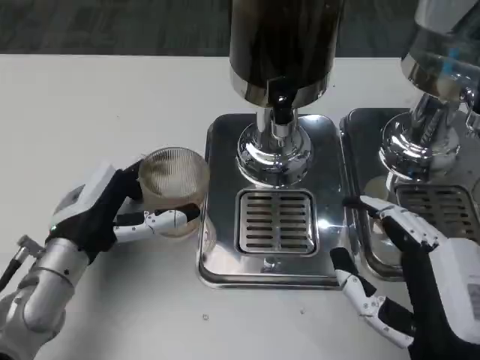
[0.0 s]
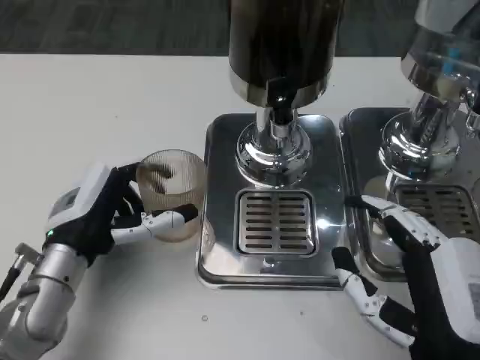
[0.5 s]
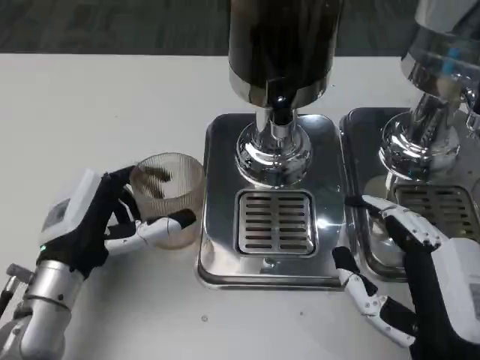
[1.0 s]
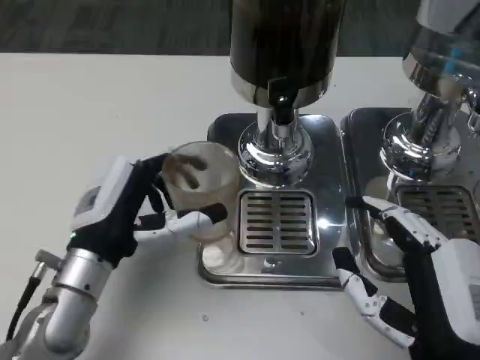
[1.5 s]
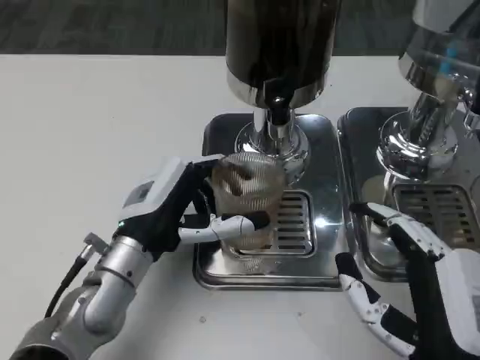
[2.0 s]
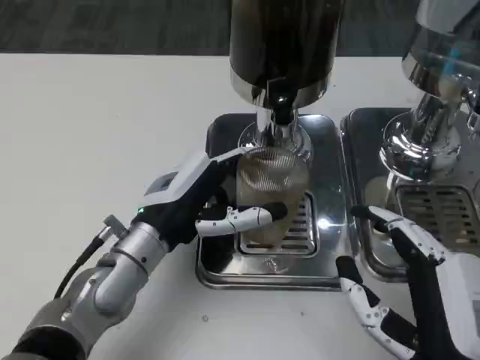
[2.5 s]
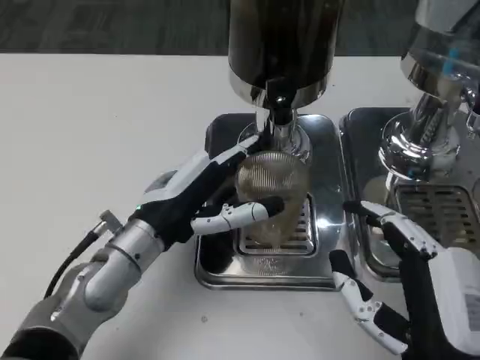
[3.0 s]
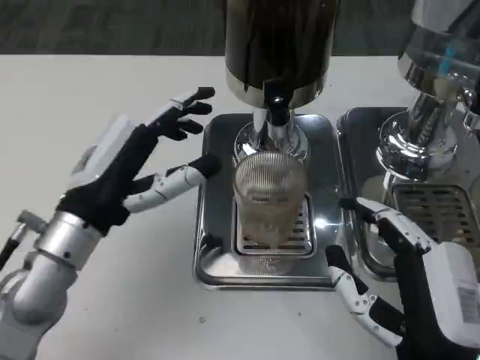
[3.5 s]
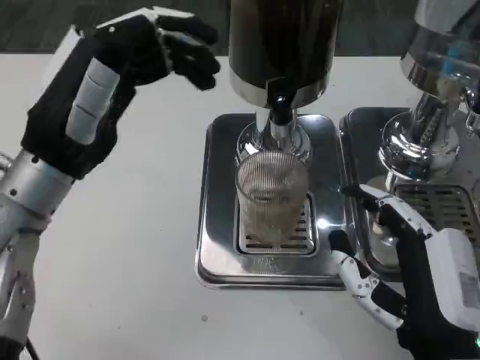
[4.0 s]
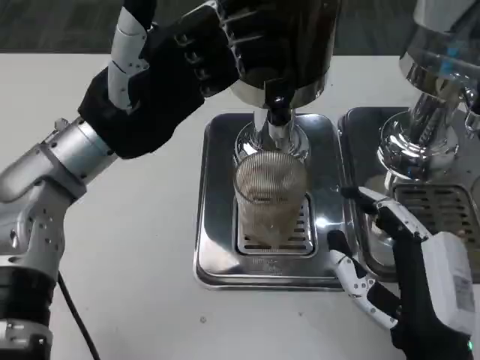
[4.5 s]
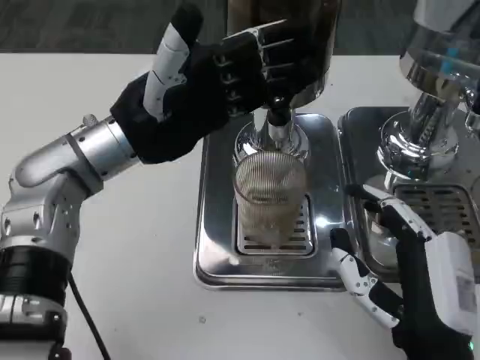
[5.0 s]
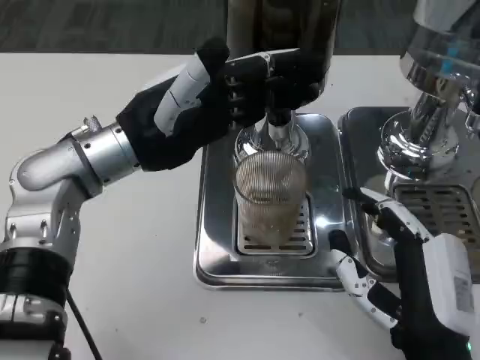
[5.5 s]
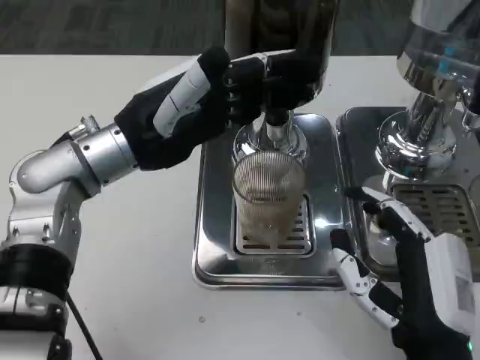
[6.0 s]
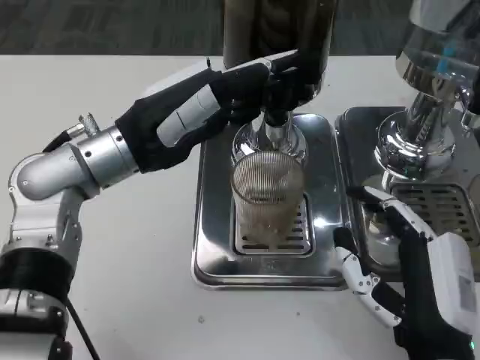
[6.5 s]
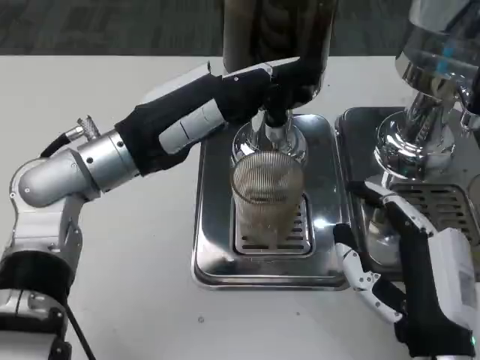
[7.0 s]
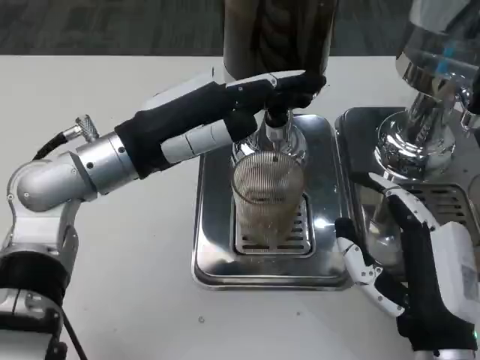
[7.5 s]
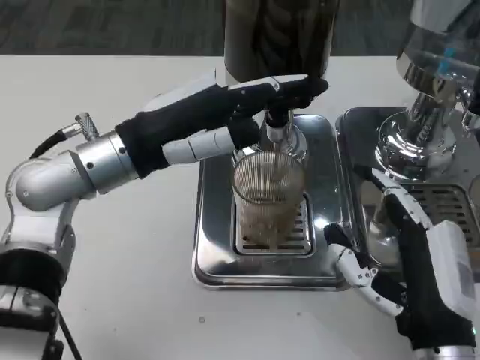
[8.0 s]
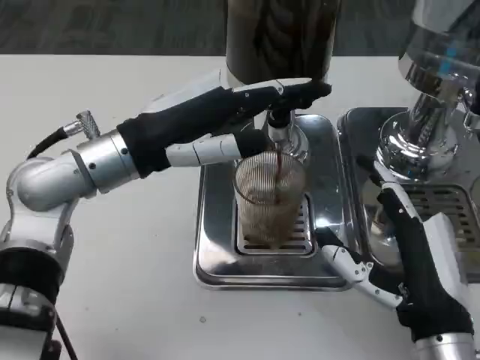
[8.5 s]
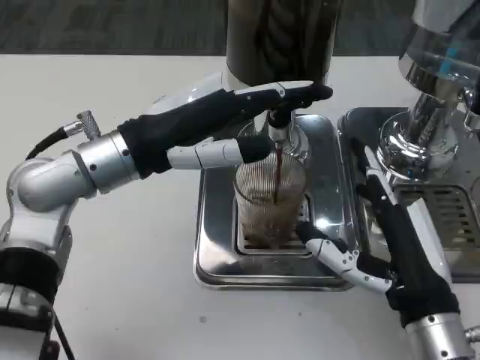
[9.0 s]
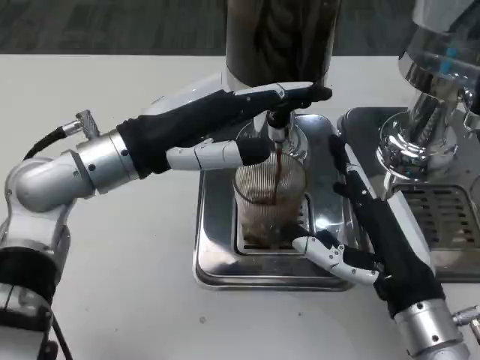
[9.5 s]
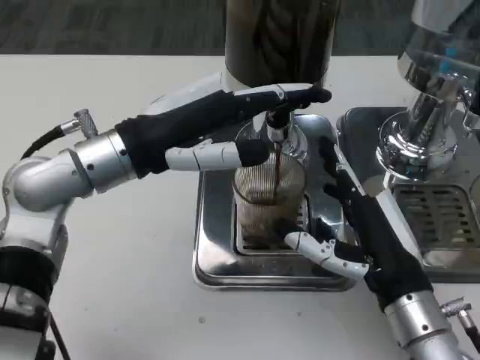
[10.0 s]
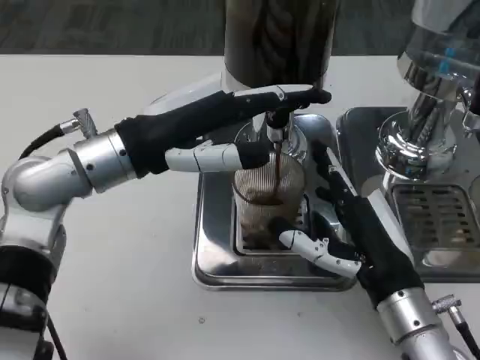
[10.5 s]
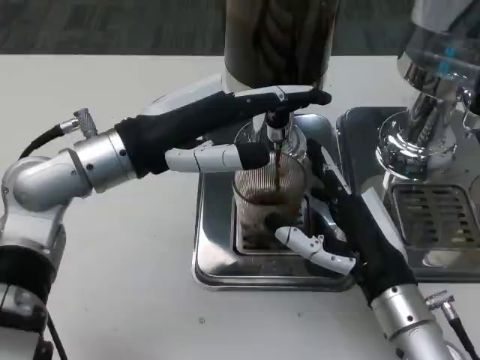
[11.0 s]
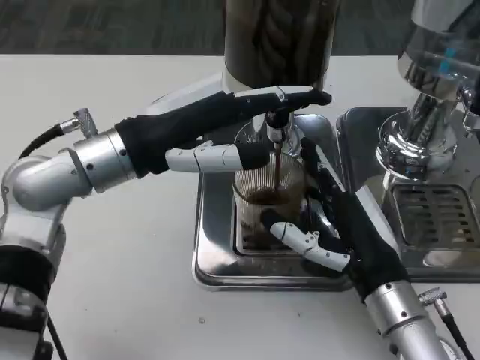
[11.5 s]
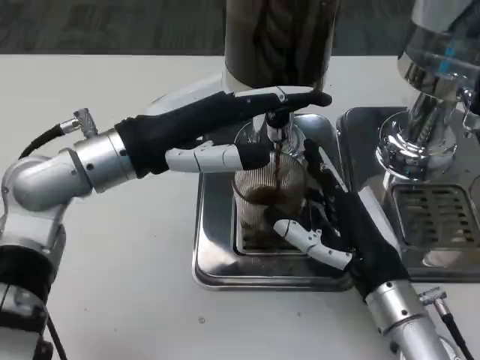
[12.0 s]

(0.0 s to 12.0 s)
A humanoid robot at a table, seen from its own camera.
Task of the whole recording: Grasp the cup under the faucet to collect the drink, then remove the cup.
0.0 s - 2.0 s: The left hand shifts approximately 5 cm to the right.
2.0 s - 4.0 s: The left hand heads upward and to the left, covering approximately 15 cm.
4.0 s - 6.0 s: The left hand is displaced forward by roughly 5 cm.
10.0 s - 12.0 s: The hands stay close to where they were, moving slightly.

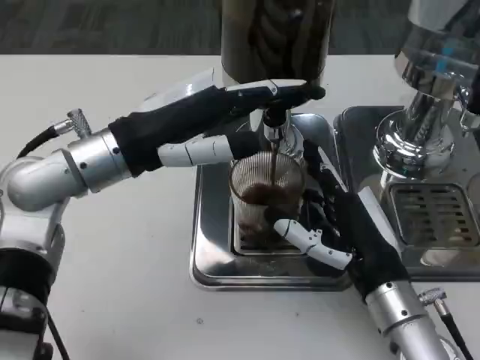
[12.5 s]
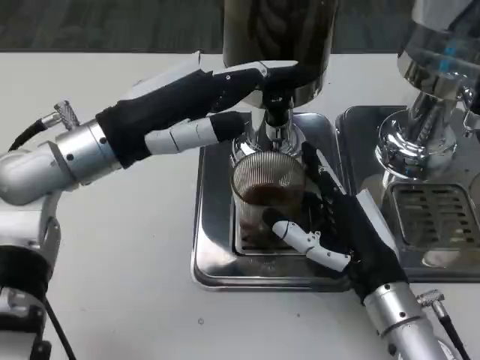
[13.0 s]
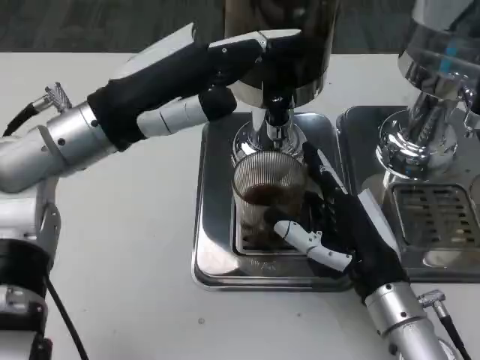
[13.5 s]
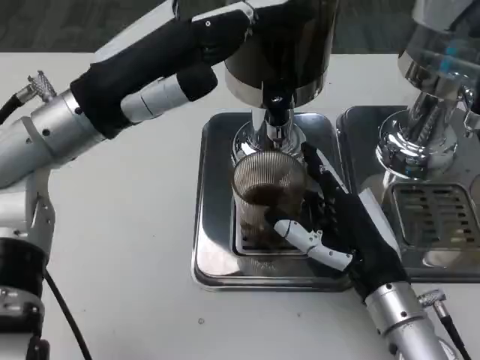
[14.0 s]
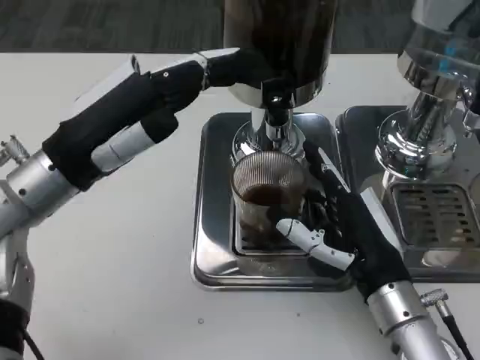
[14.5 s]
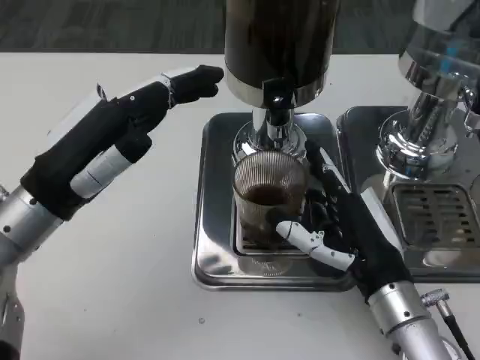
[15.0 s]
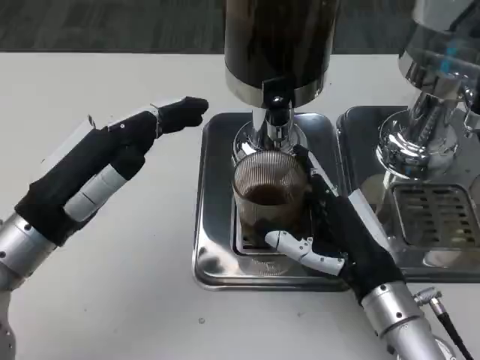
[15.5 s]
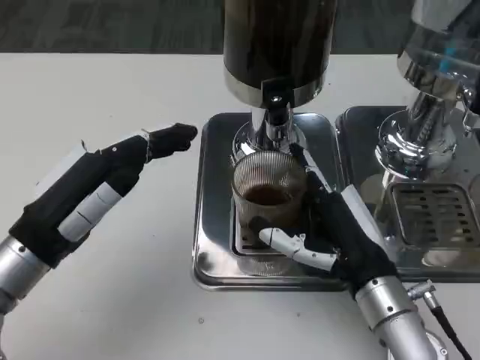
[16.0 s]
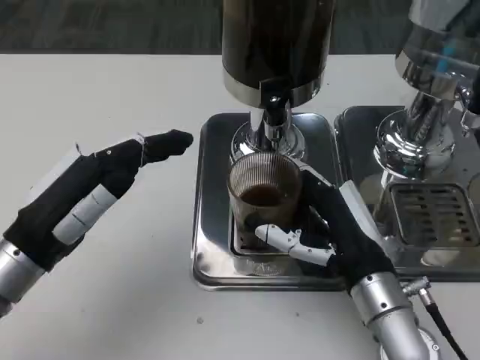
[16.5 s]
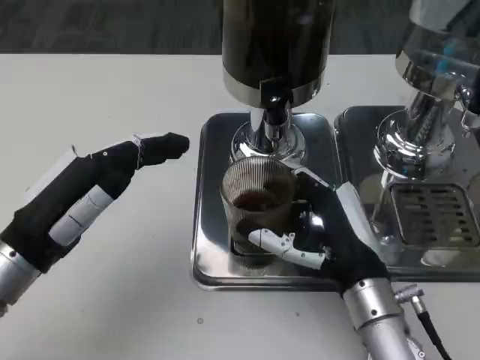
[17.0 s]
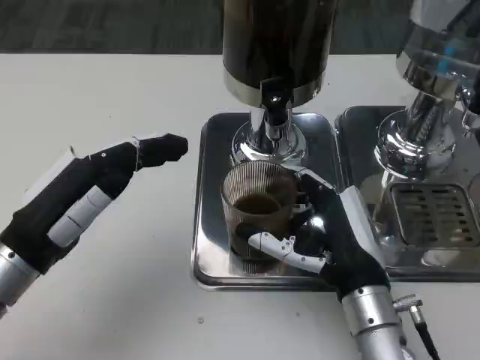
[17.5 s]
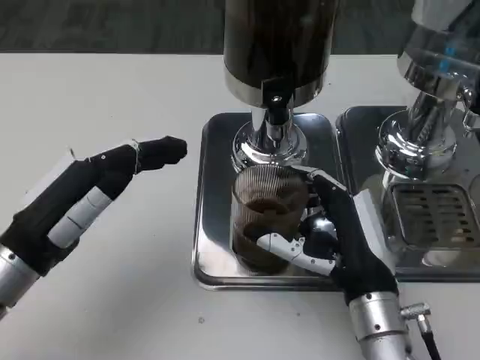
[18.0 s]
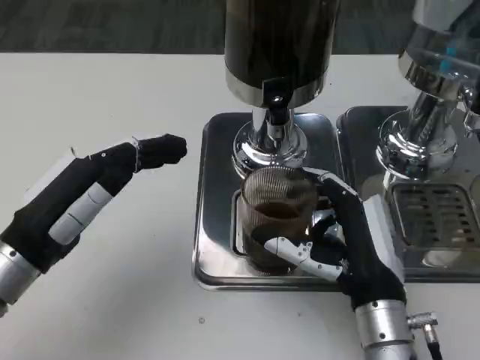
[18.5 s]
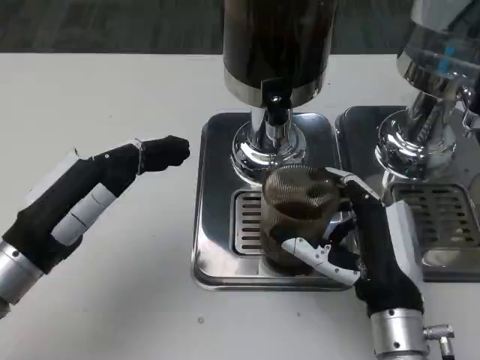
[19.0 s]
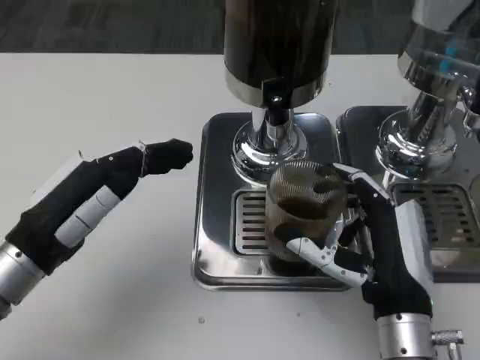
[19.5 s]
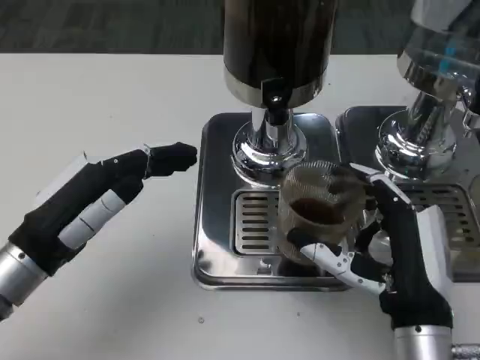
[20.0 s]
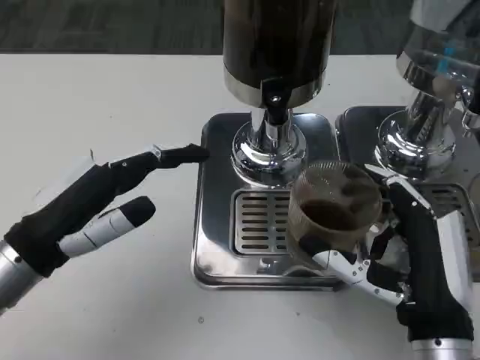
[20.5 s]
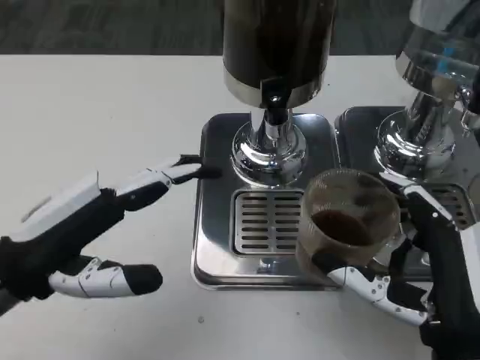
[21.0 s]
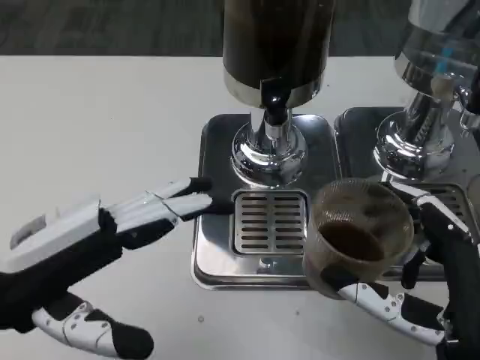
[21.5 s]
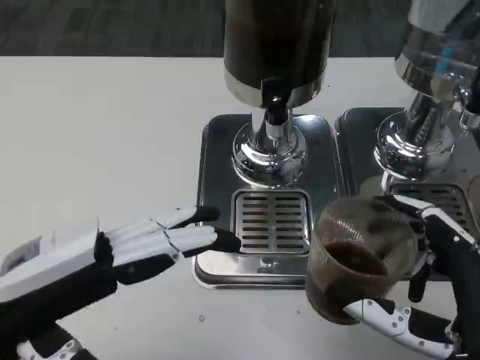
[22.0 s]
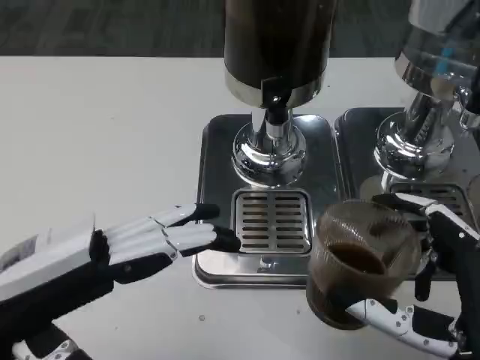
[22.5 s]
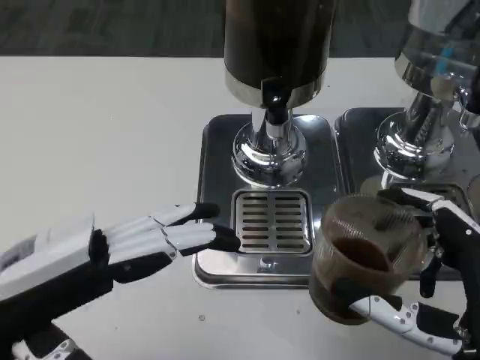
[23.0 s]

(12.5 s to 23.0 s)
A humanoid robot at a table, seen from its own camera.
Task of the whole recording: Grasp the cup under the faucet to collect the drink, then remove the cup.
12.5 s - 14.5 s: The left hand shifts by some 5 cm.
14.5 s - 16.5 s: The left hand travels downward and backward by some 10 cm.
16.5 s - 19.0 s: The hands stay close to where they were, moving slightly.
19.0 s - 21.0 s: The right hand is displaced backward by about 5 cm.

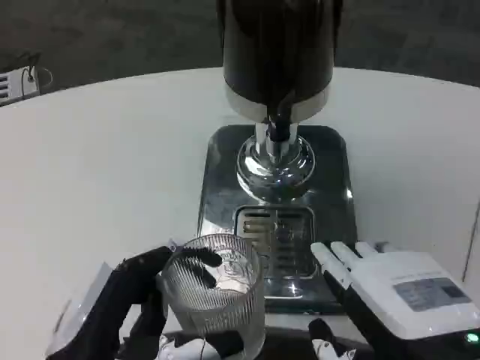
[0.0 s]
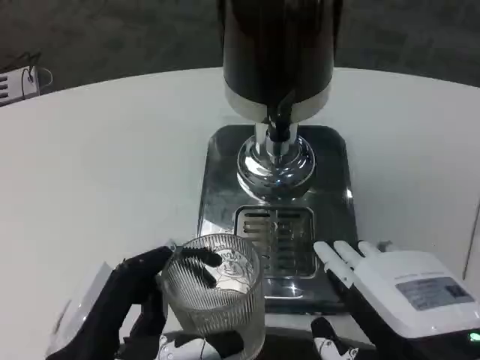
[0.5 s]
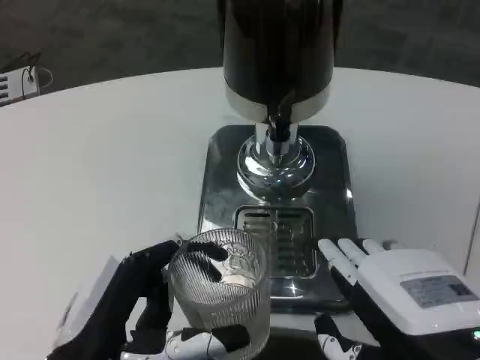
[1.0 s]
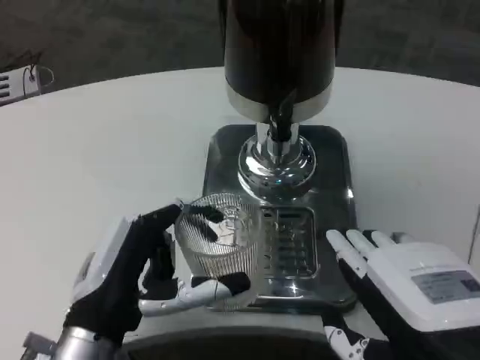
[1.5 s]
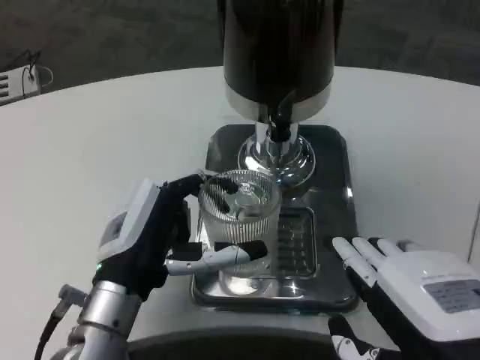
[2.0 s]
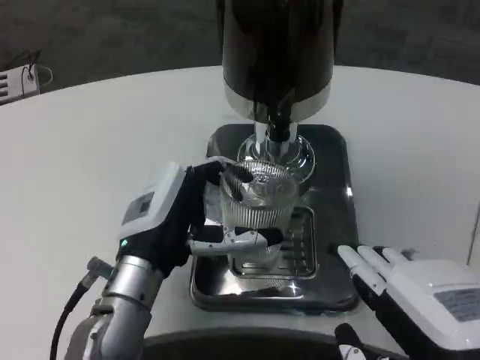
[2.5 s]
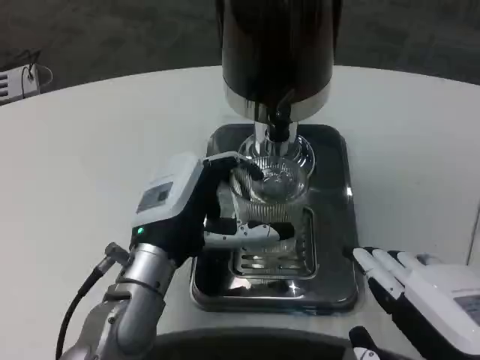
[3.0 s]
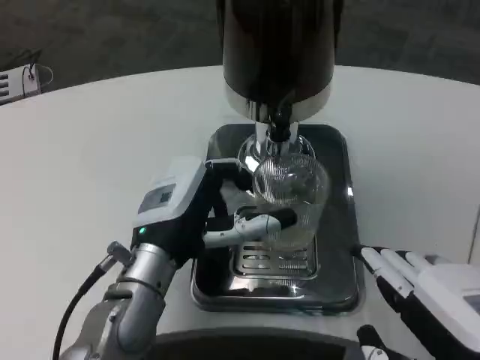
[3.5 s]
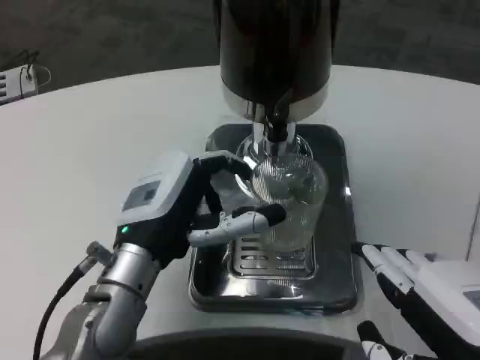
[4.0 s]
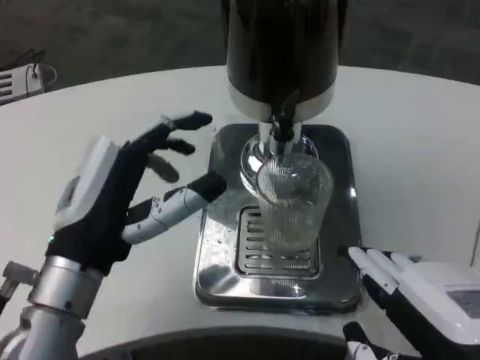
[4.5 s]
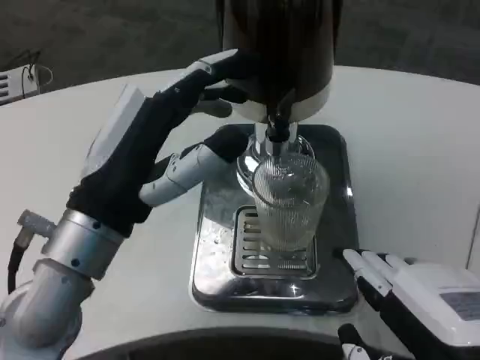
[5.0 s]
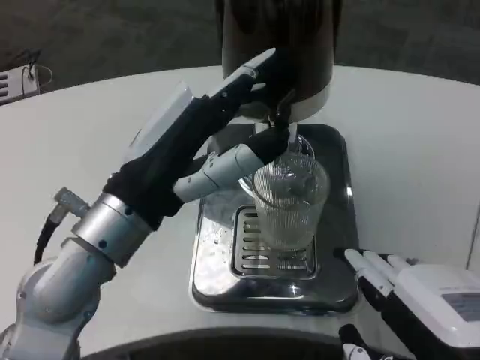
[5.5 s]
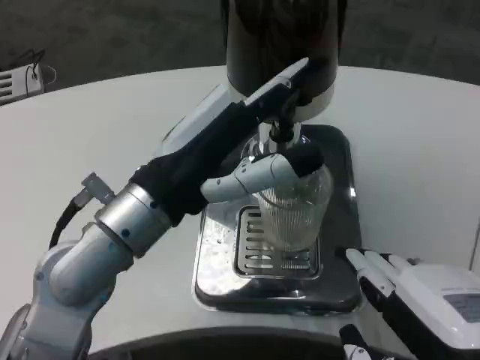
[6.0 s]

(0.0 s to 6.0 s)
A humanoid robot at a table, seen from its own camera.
Task of the whole recording: Grasp the cup under the faucet to collect the drink, then remove the cup.
0.0 s - 2.0 s: The left hand moves forward, roughly 10 cm.
4.0 s - 6.0 s: The left hand heads upward, covering about 10 cm.
